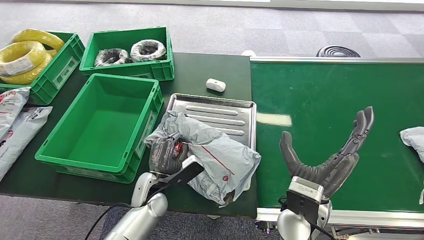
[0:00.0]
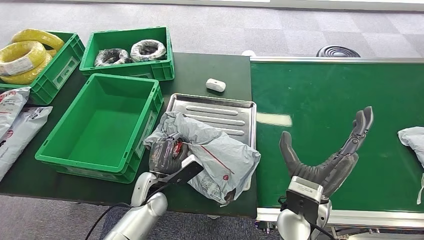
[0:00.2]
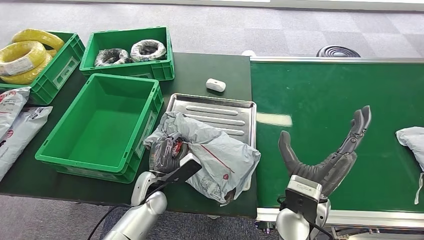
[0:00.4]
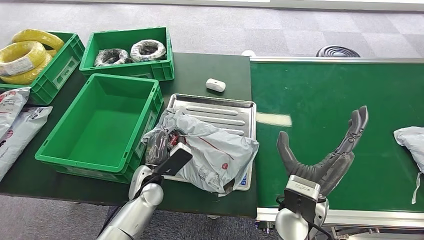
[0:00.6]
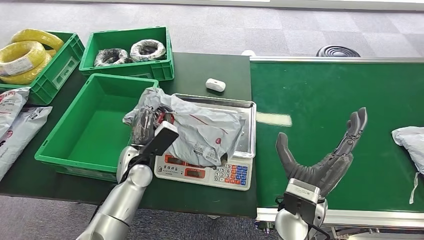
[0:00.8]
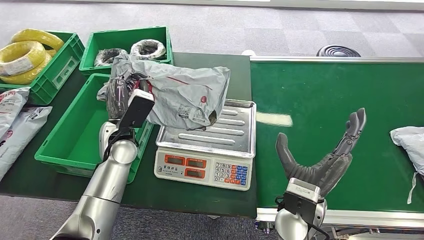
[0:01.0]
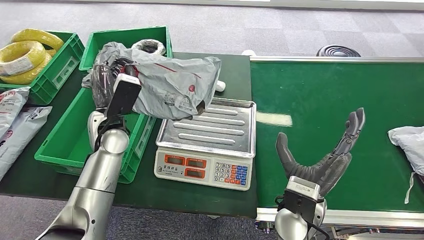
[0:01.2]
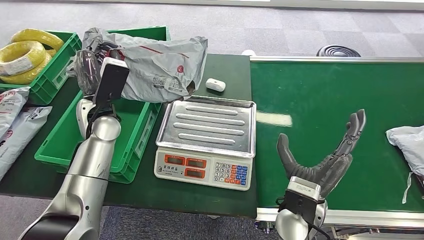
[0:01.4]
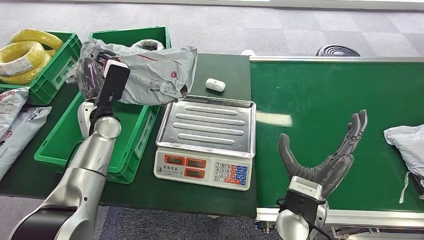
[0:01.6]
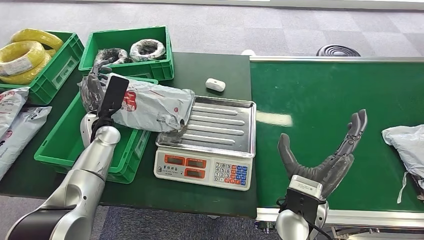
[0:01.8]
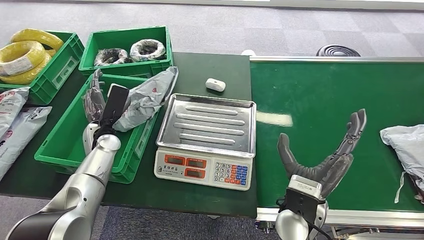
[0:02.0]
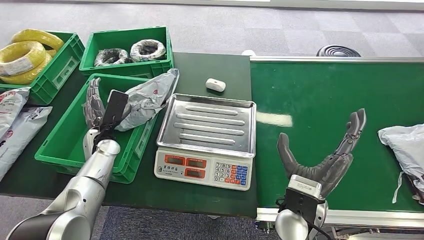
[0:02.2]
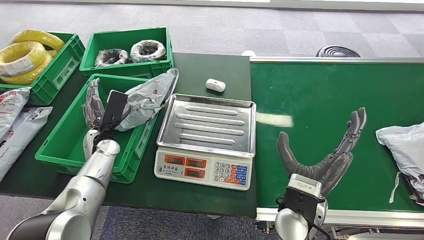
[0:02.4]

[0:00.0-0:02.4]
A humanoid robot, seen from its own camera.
Step, 0:01.4 to 0:02.4: Place the package into the parcel locker.
0:01.2 to 0:02.4: The left hand goes some 10 cm downward and to the left.
